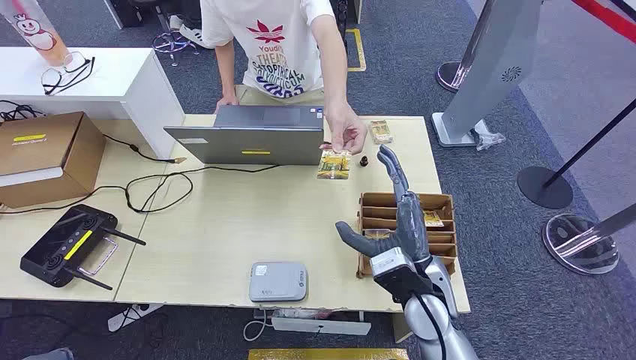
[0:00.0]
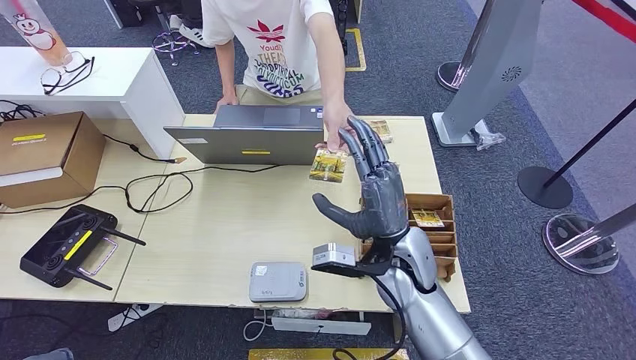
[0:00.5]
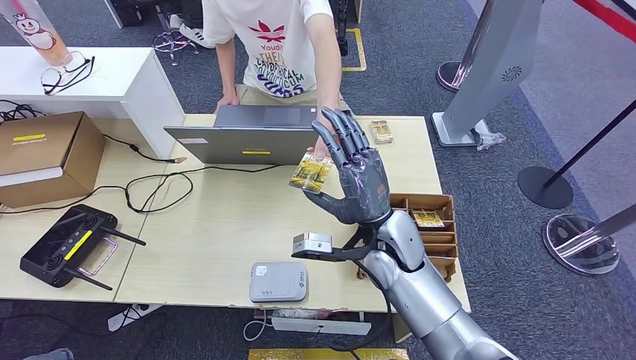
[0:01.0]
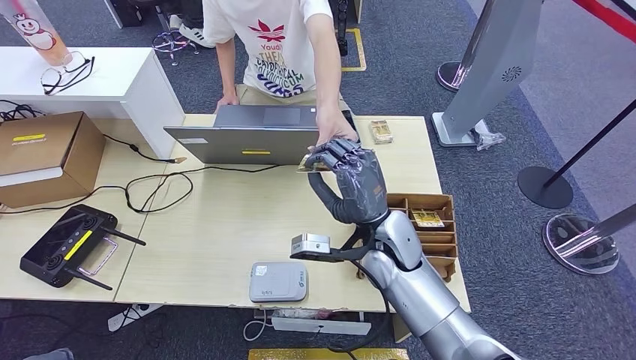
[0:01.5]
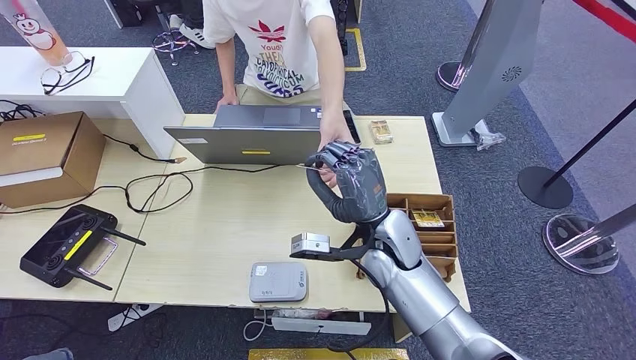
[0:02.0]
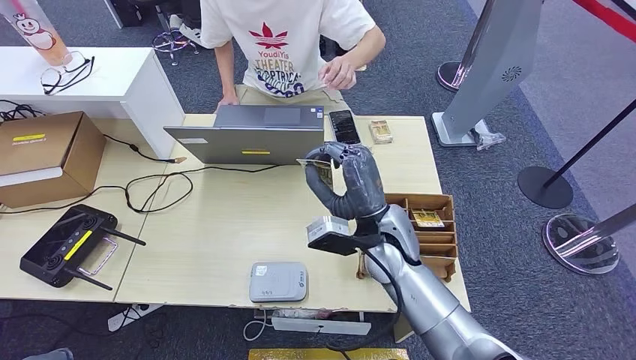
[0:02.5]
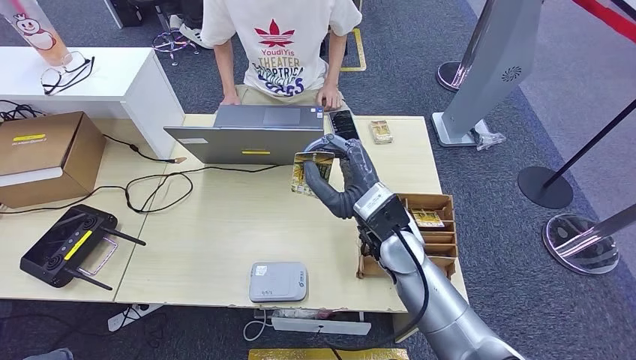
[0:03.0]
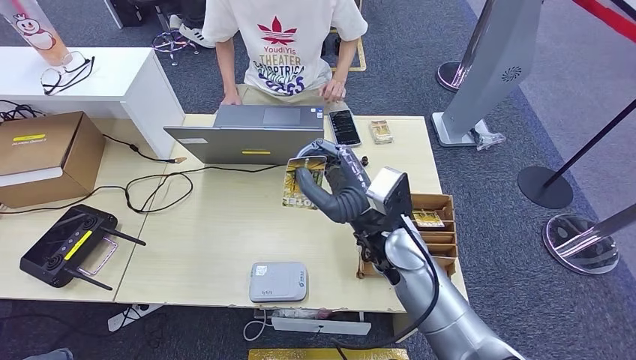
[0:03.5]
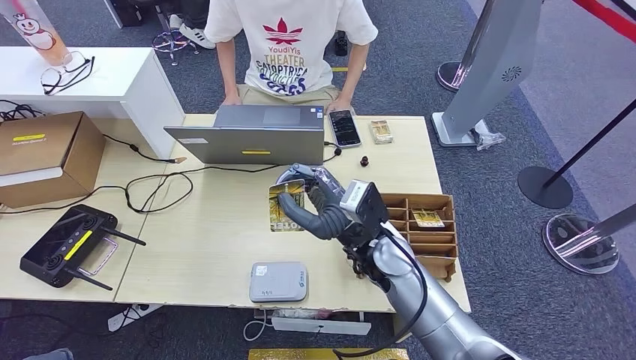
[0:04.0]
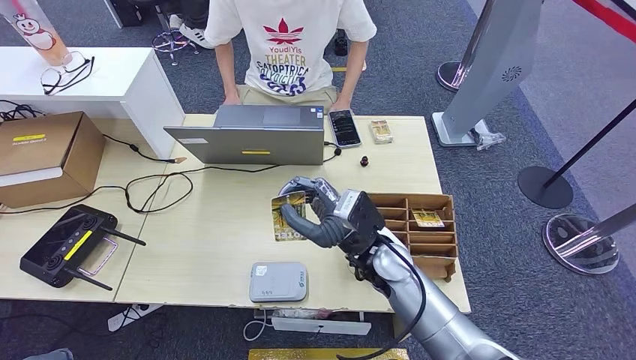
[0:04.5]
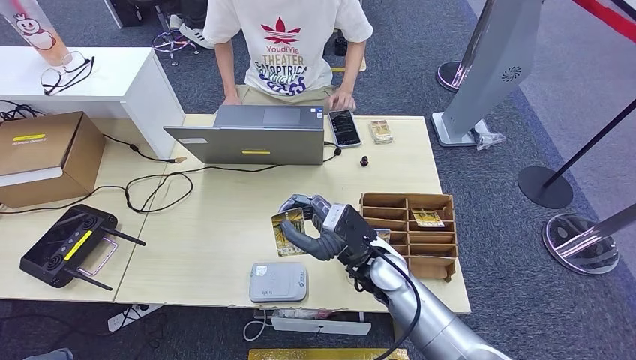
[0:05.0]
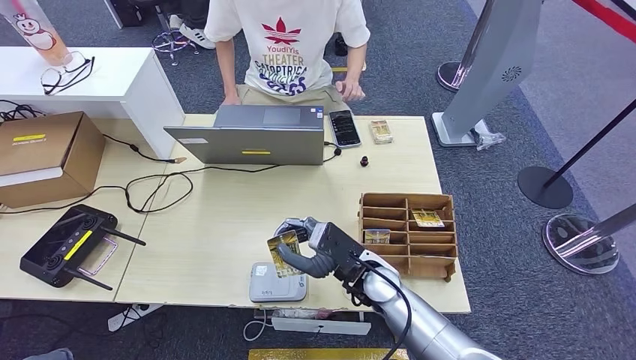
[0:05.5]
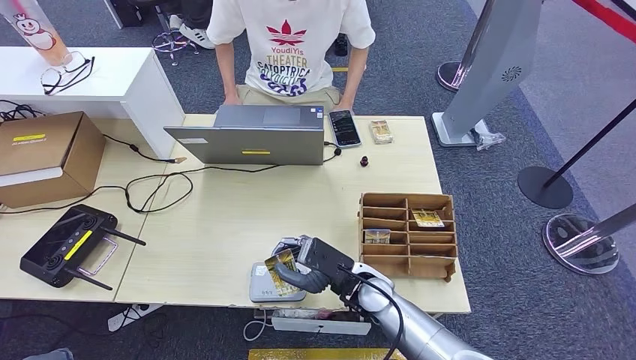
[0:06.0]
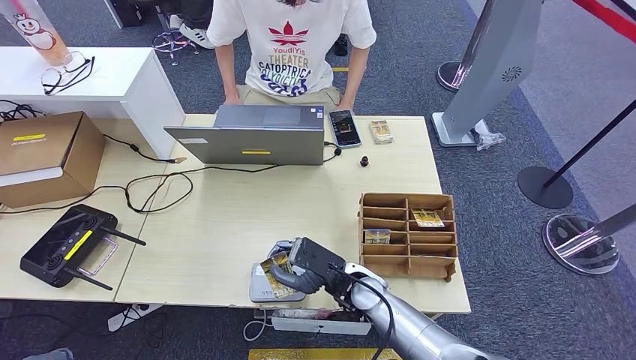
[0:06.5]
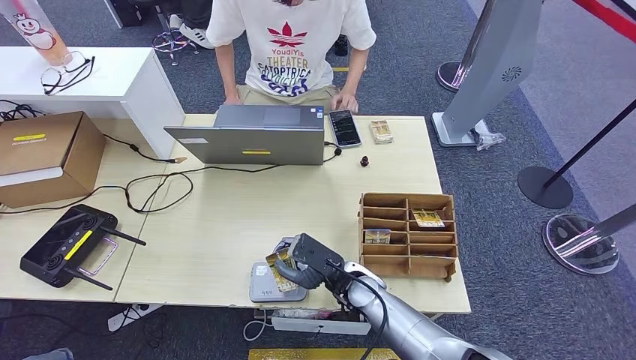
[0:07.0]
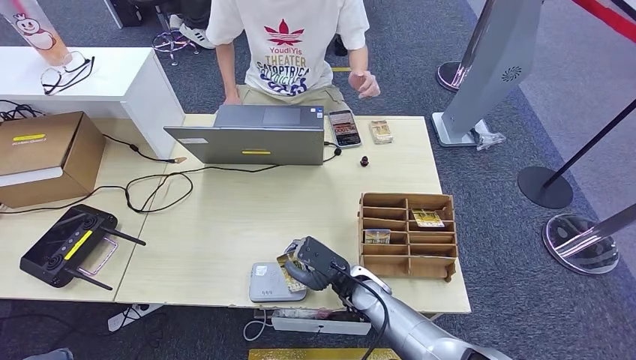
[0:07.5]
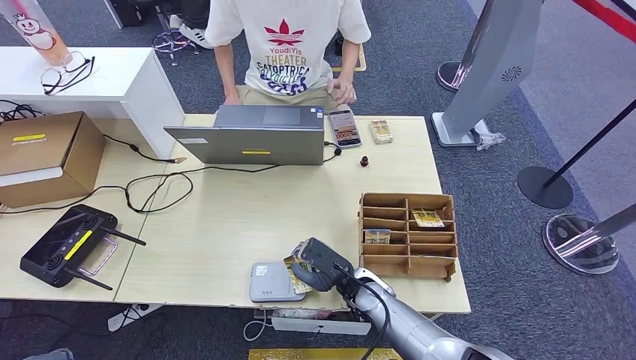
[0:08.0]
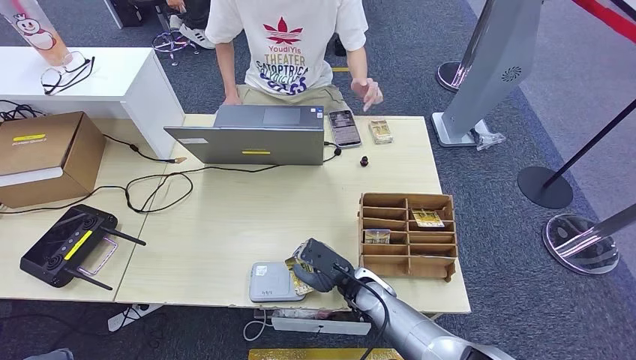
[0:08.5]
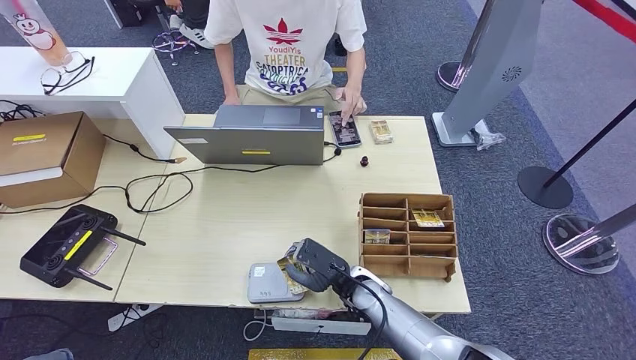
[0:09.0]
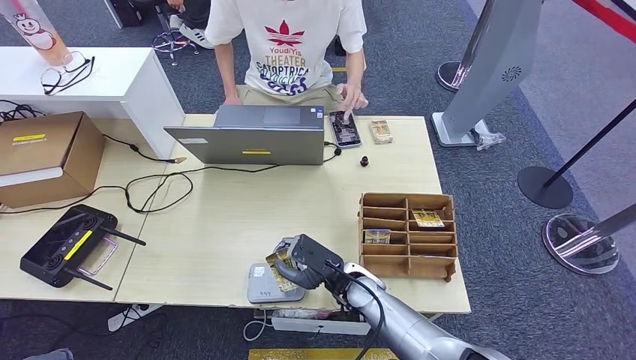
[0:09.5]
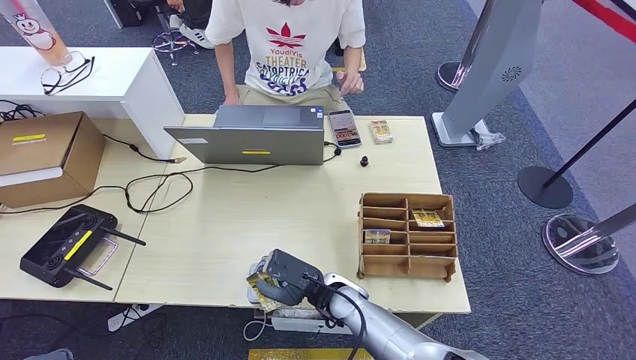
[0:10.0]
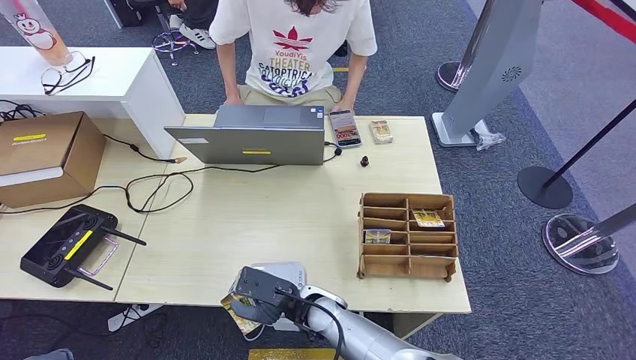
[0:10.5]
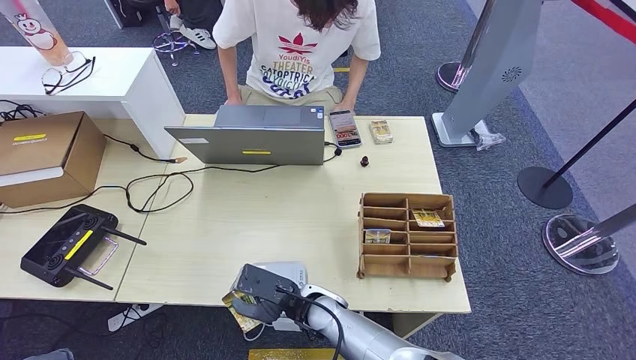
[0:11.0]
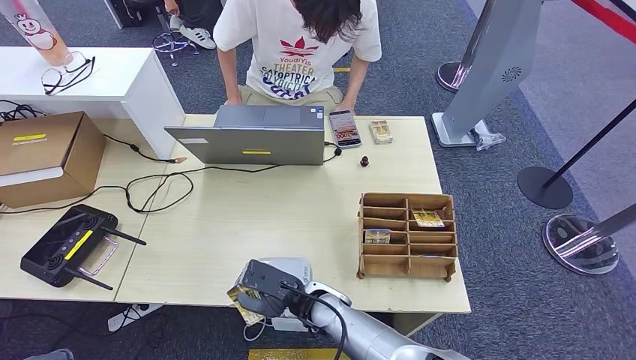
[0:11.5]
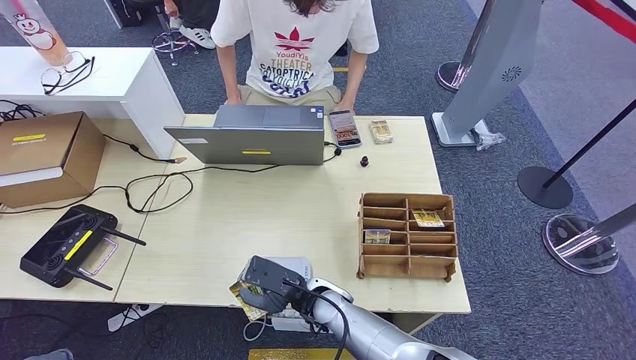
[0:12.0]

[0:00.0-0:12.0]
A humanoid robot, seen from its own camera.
Step, 0:00.0 to 0:02.0: Take the ID card from the person's hand.
Step, 0:02.5 to 0:08.5: Place the ID card on the card reader.
0:04.0 to 0:06.0: The right hand goes some 10 cm downward.
0:06.0 to 0:08.0: The hands move only a little.
0:08.0 to 0:10.0: The right hand is displaced to the left by approximately 5 cm.
0:10.0 to 0:12.0: The hands make only small movements.

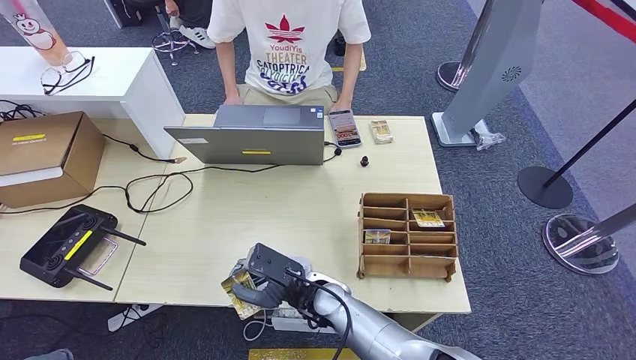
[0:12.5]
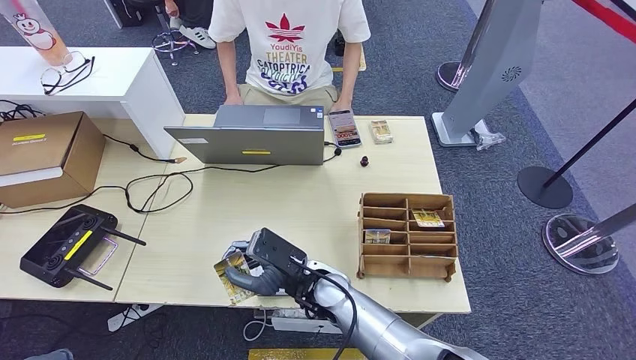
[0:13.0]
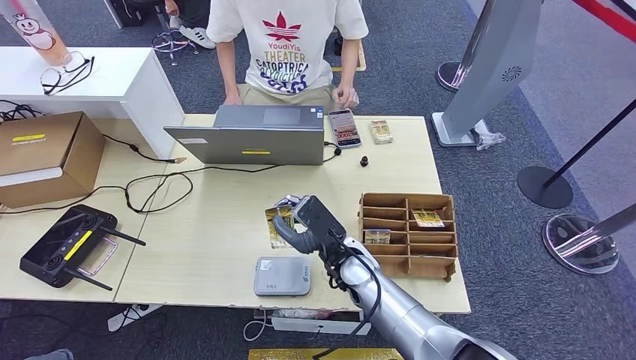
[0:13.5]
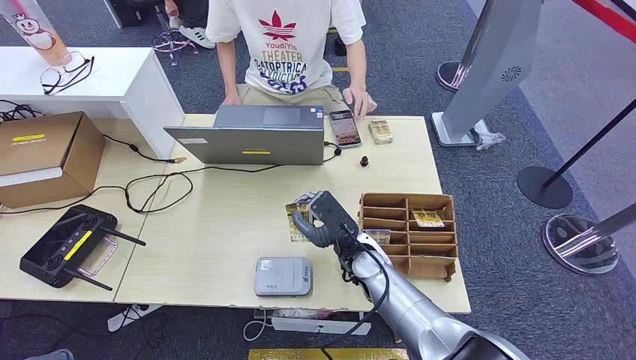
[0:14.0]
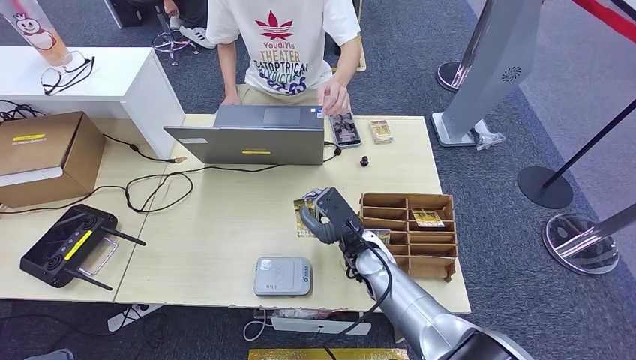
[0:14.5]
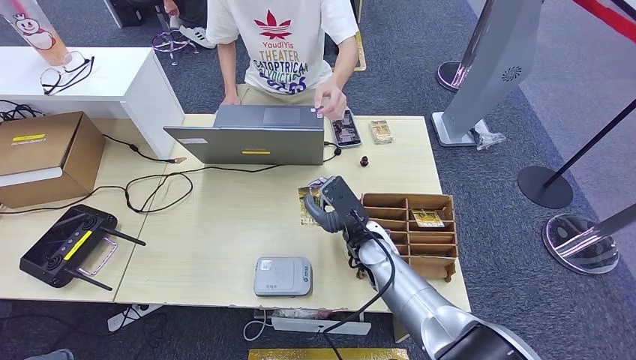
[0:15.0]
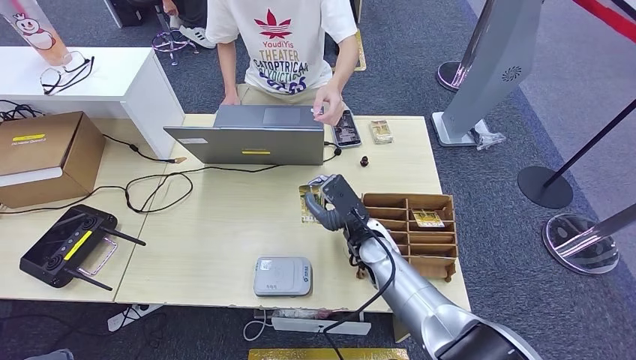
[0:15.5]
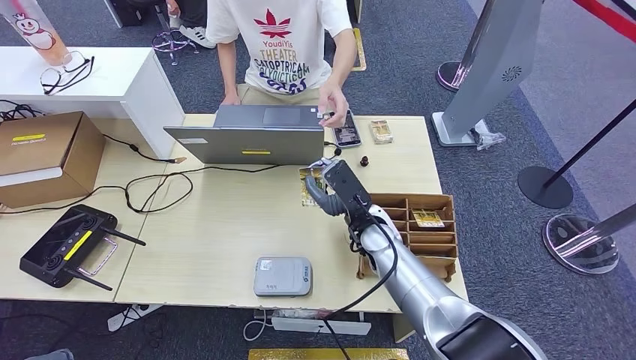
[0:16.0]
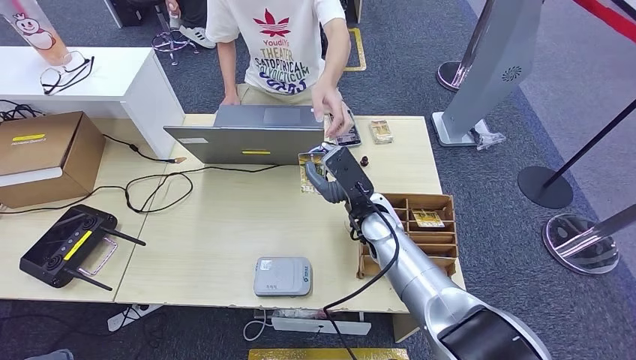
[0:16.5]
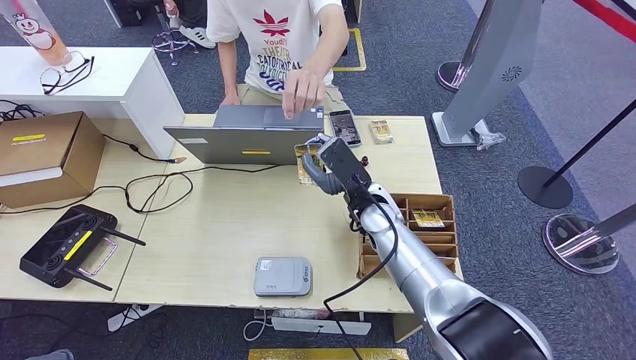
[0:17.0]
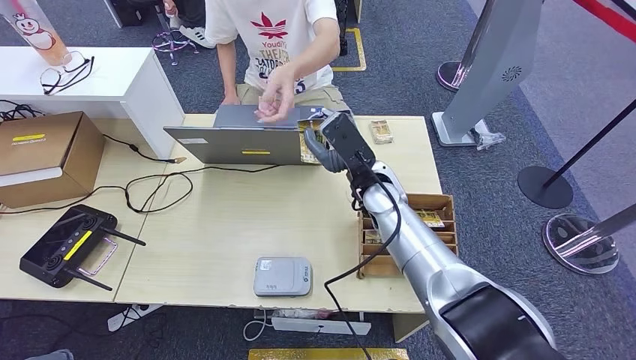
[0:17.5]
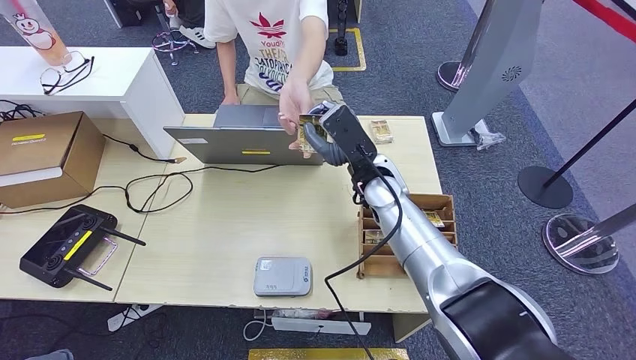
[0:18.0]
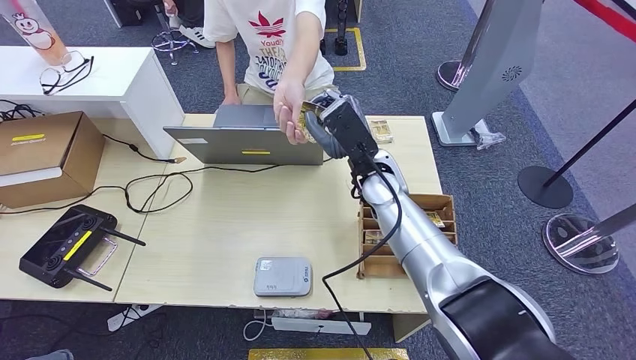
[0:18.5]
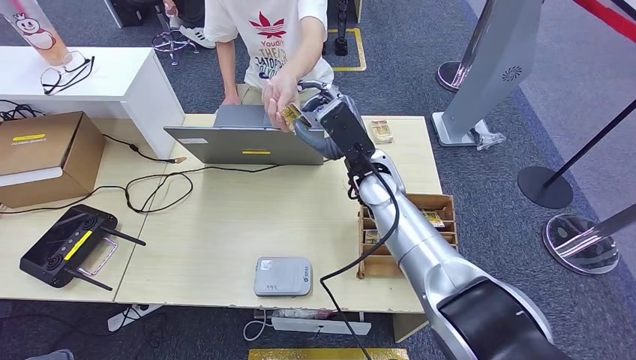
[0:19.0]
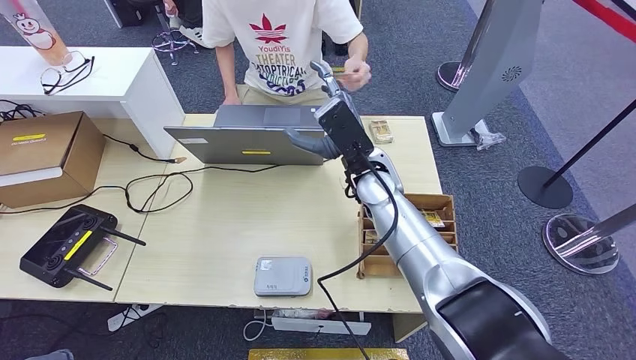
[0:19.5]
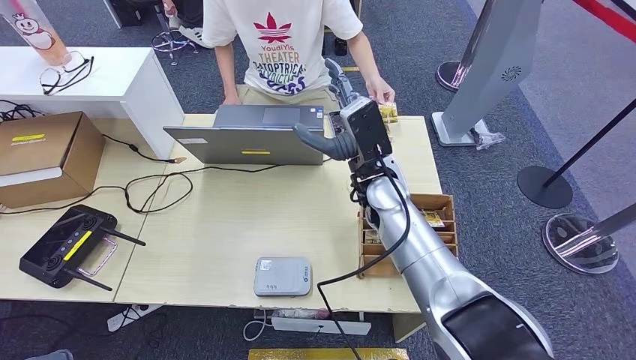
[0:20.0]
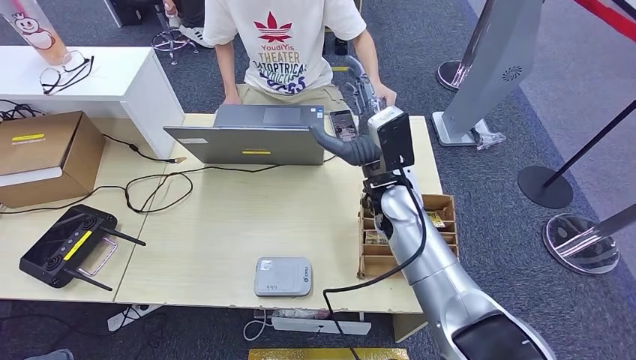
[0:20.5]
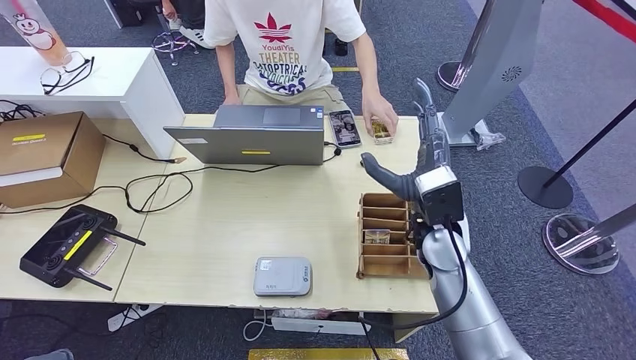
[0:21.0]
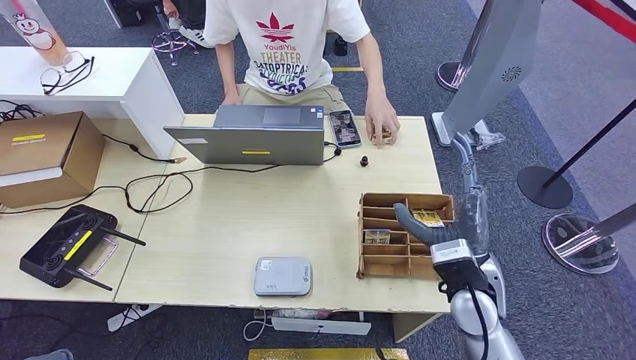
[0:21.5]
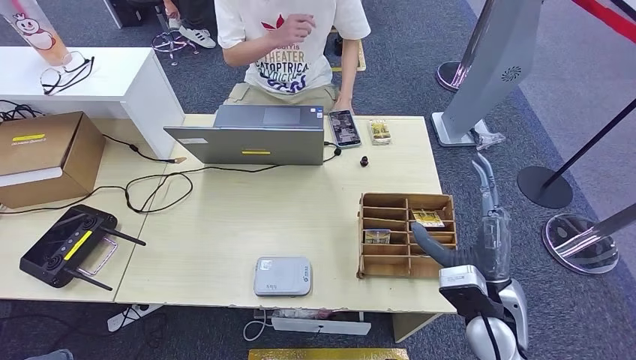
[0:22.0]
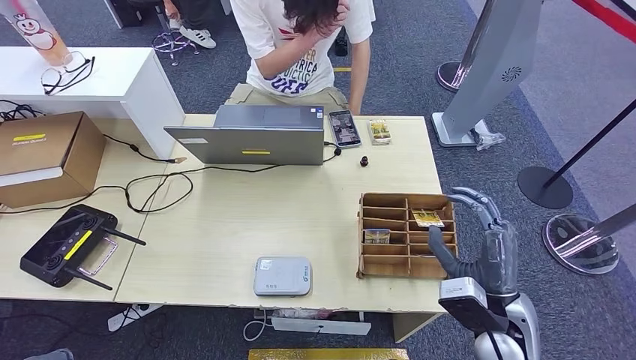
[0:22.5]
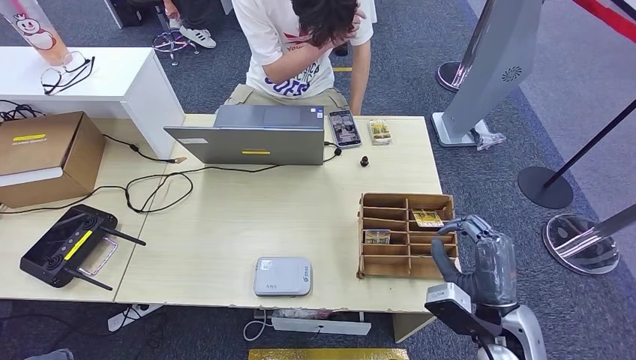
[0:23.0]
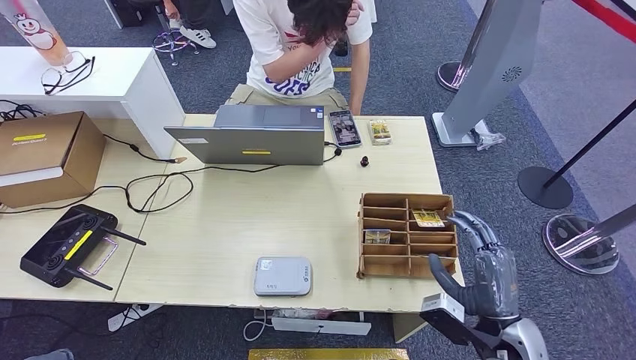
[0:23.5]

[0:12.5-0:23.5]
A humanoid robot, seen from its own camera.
Step, 0:12.5 to 0:19.5: Hand the ID card to the person.
0:12.5 to 0:14.5: The right hand travels to the right and forward by approximately 10 cm.
0:14.5 to 0:16.0: The right hand ends up about 5 cm from where it was.
0:16.0 to 0:18.0: The right hand shifts approximately 10 cm upward.
0:18.0 to 0:20.0: There are only small adjustments of the hands.
0:20.0 to 0:21.5: The right hand heads backward, to the right and downward, covering roughly 20 cm.
0:21.5 to 0:23.5: The right hand shifts about 10 cm backward, to the right and downward.